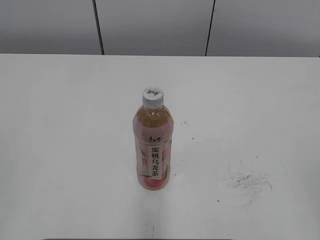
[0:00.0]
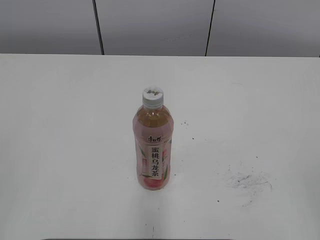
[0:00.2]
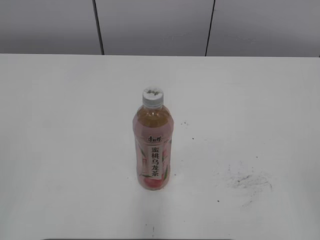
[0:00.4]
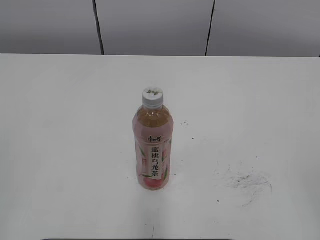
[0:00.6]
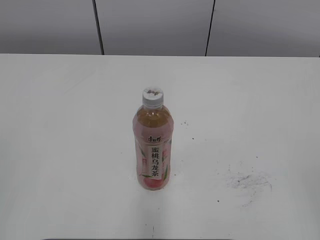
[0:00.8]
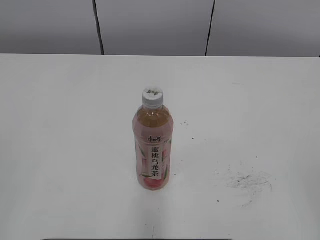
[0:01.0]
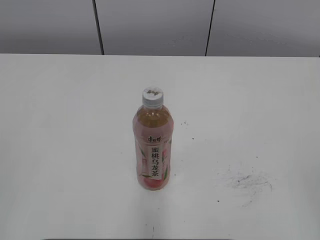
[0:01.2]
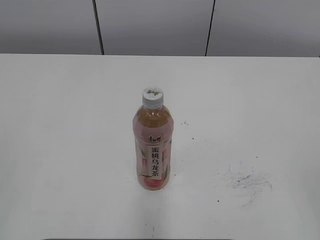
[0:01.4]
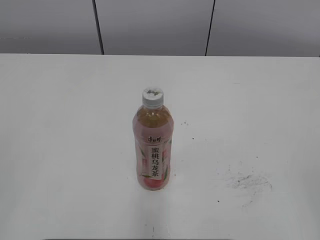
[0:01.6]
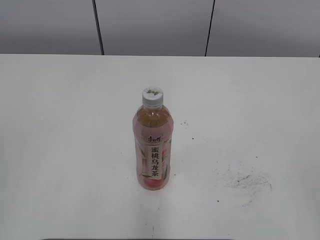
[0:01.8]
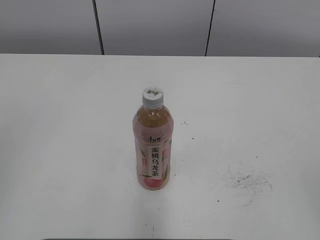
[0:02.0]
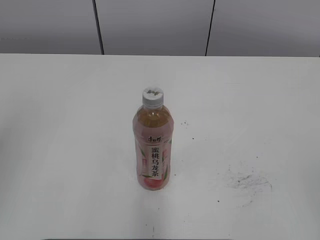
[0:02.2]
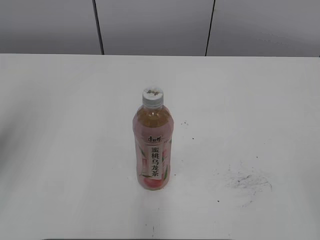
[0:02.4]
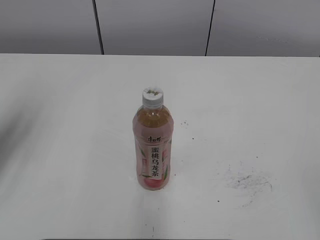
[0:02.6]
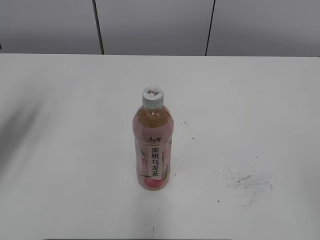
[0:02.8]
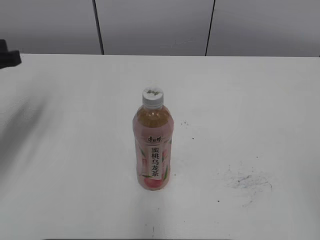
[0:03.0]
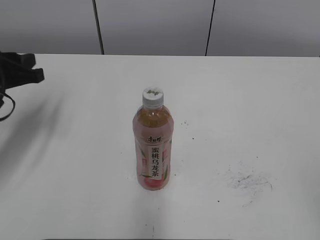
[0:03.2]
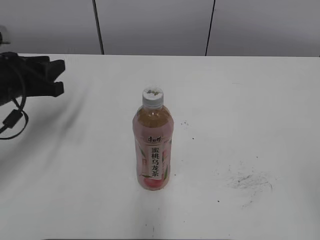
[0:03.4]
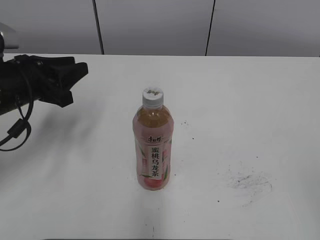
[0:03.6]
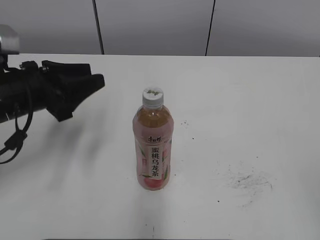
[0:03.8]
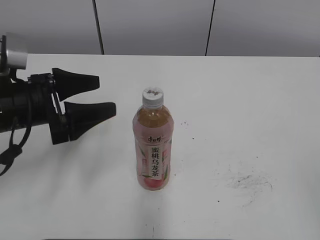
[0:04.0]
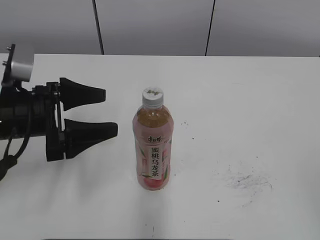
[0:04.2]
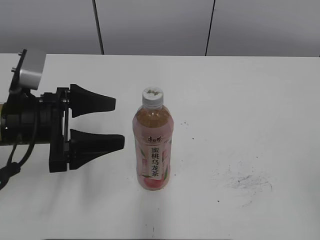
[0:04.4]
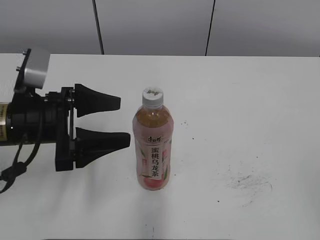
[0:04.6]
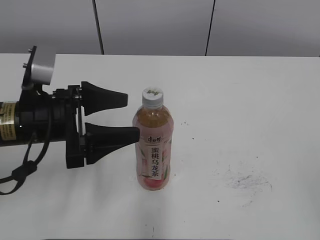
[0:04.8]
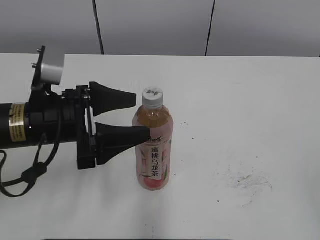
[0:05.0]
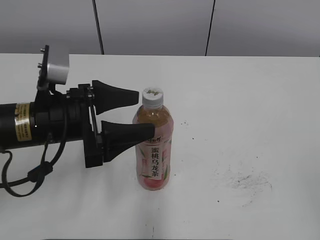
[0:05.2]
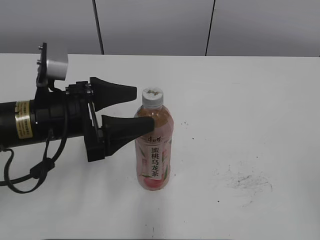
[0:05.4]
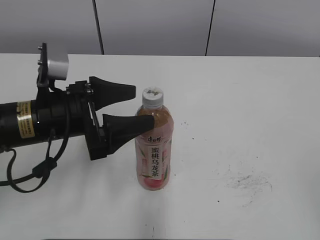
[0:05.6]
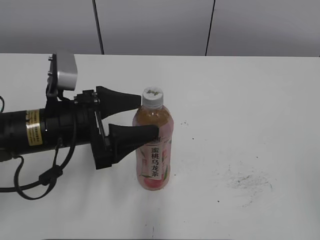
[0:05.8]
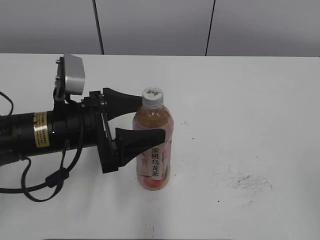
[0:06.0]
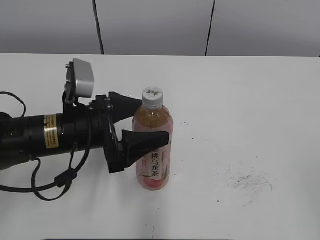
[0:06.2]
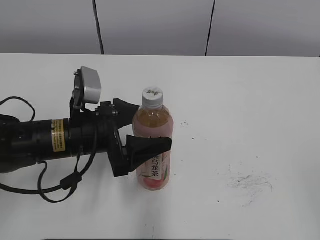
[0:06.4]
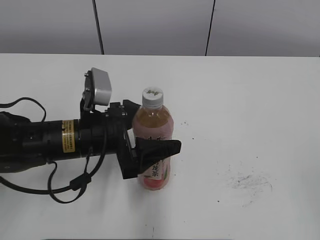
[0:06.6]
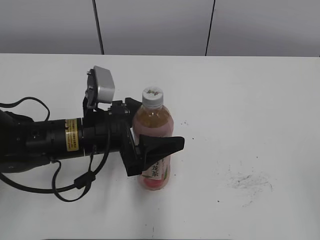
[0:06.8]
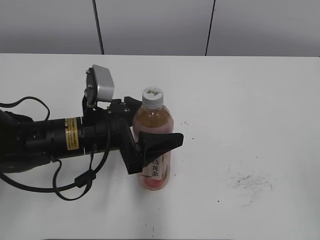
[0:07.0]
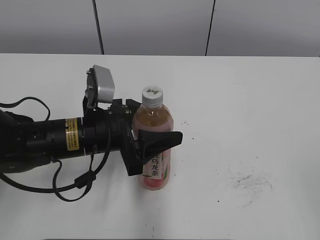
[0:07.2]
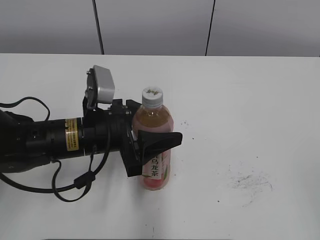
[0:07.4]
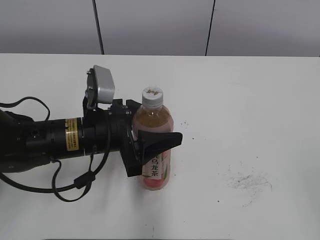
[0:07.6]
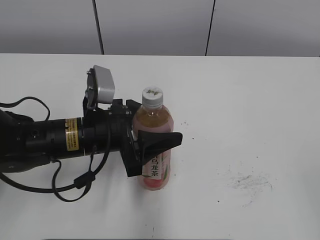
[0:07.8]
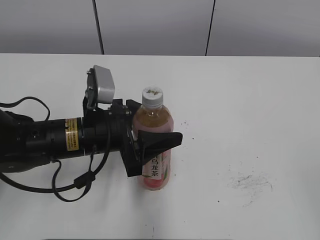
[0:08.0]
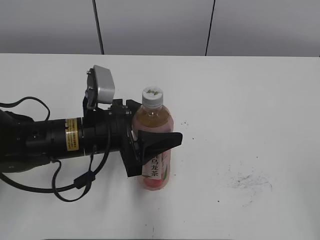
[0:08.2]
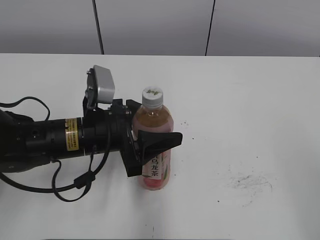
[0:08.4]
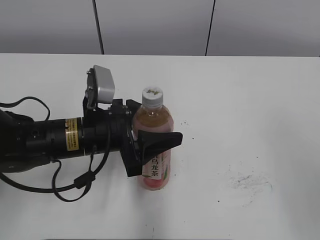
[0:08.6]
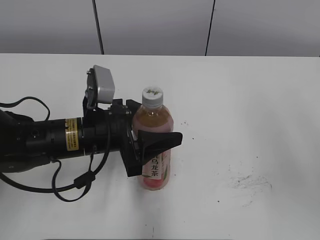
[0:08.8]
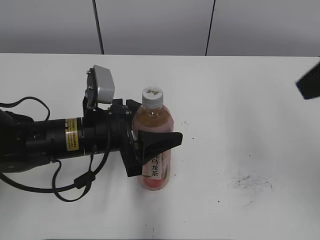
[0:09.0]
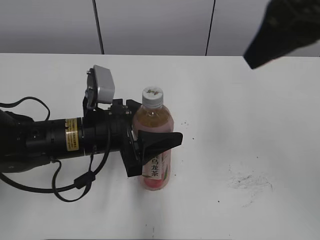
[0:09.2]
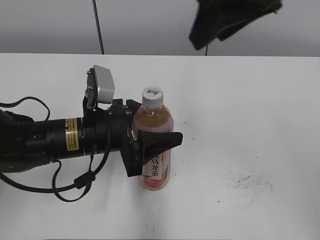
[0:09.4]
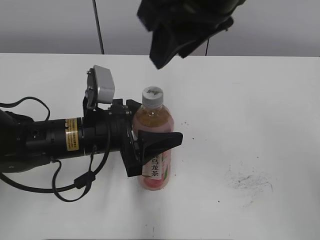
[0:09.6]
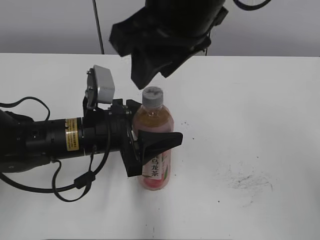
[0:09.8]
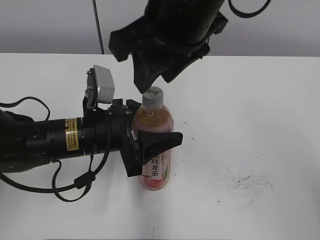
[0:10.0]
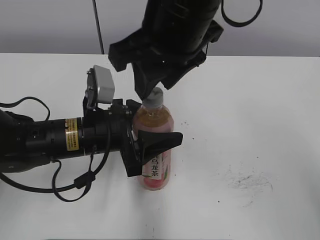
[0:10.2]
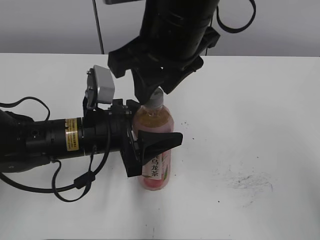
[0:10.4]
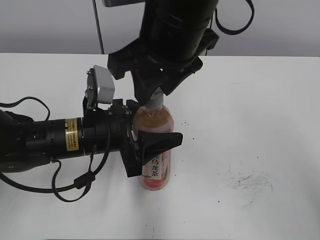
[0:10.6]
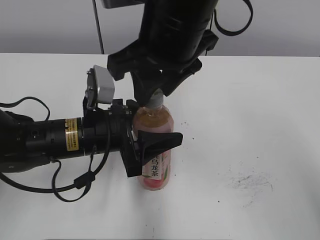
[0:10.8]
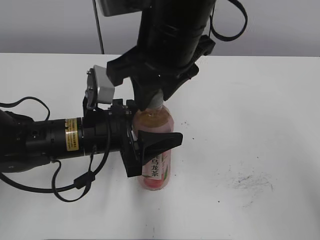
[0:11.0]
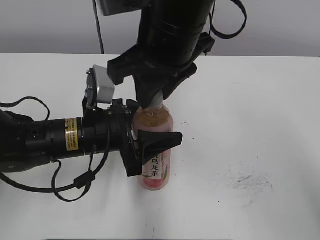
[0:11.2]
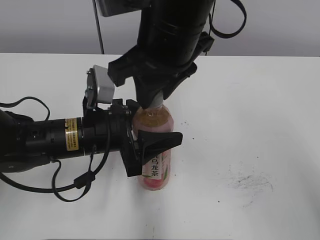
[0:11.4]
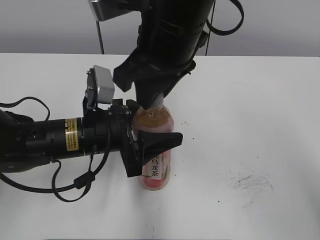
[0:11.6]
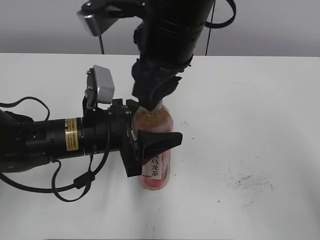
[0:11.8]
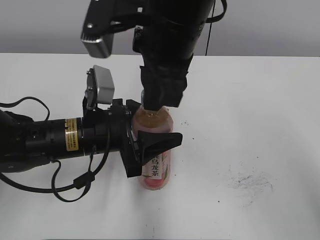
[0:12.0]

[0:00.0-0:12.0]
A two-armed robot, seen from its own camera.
Step, 0:00.0 to 0:07.0: Grab the Peach Oolong Tea with the left hand.
0:01.6 to 0:03.0: The left gripper shifts roughly 30 cm forward.
0:03.0 to 0:04.4: The left gripper heads to the right and downward, covering approximately 10 cm, and opens its fingers.
0:04.4 to 0:06.0: The left gripper shifts about 5 cm to the right.
0:06.0 to 0:07.6: The left gripper closes.
0:07.6 to 0:09.0: The right gripper heads forward, upward and to the left, covering about 25 cm.
0:09.0 to 0:10.4: The right gripper moves to the left, approximately 20 cm.

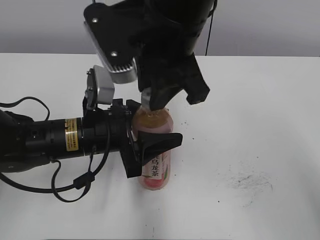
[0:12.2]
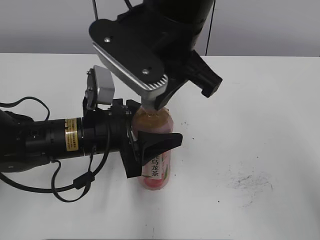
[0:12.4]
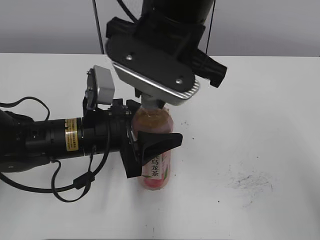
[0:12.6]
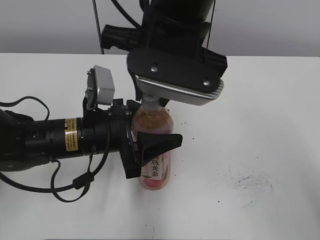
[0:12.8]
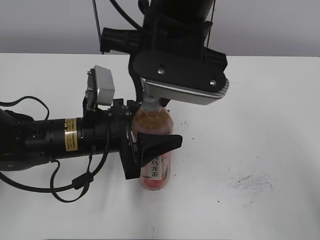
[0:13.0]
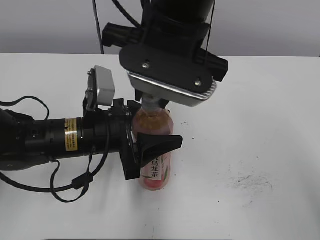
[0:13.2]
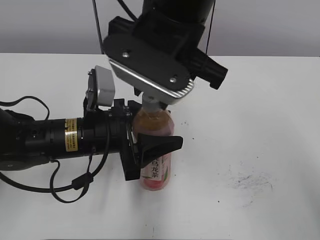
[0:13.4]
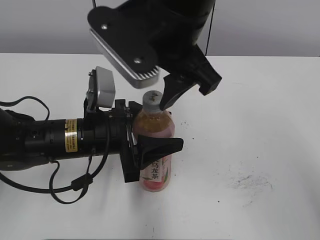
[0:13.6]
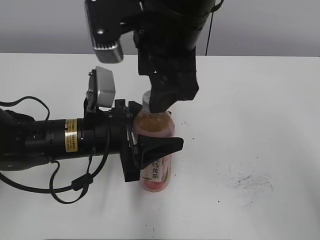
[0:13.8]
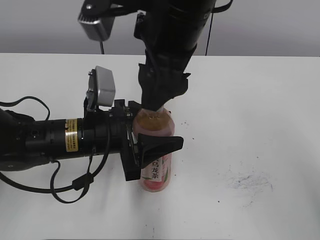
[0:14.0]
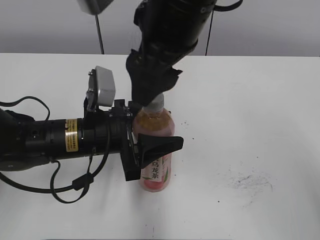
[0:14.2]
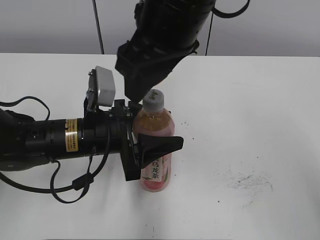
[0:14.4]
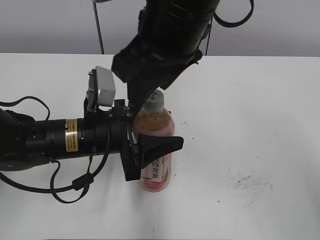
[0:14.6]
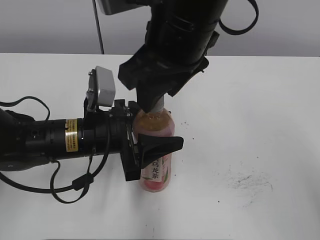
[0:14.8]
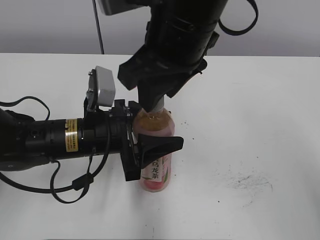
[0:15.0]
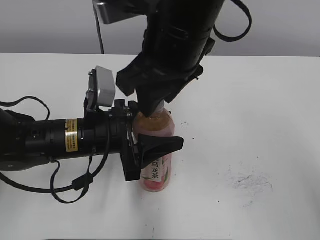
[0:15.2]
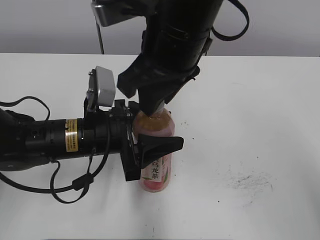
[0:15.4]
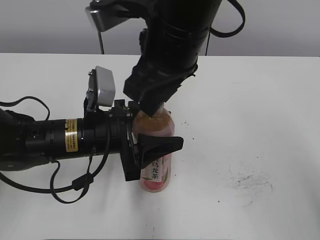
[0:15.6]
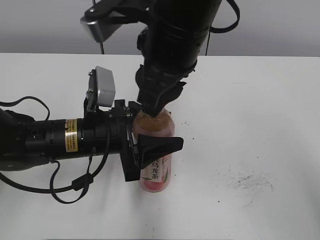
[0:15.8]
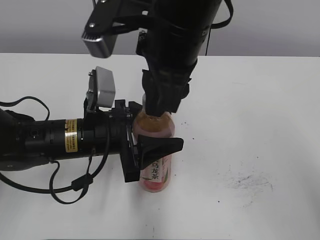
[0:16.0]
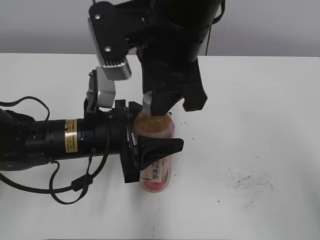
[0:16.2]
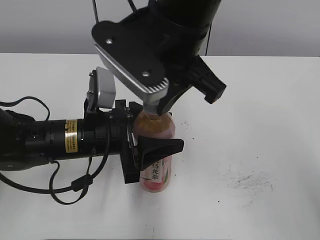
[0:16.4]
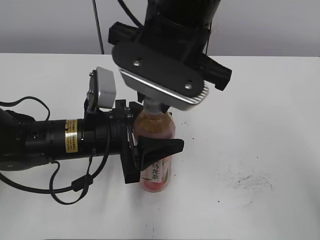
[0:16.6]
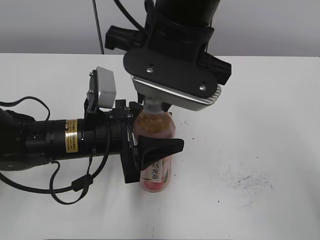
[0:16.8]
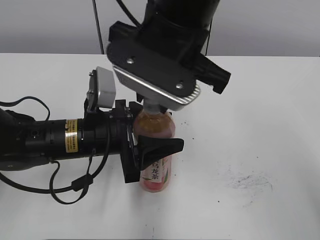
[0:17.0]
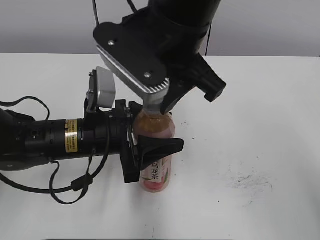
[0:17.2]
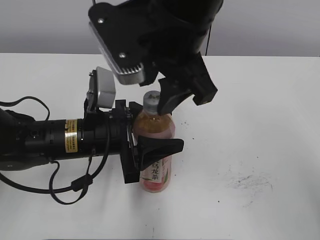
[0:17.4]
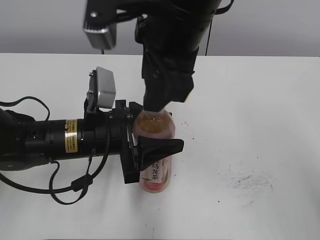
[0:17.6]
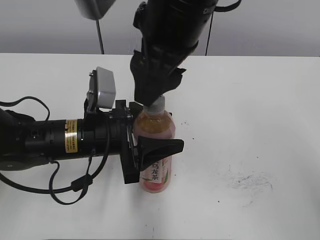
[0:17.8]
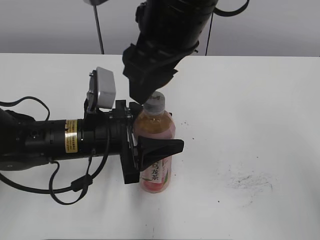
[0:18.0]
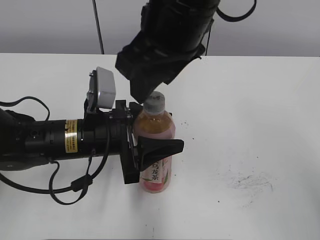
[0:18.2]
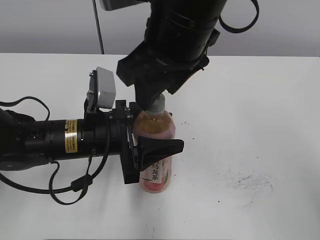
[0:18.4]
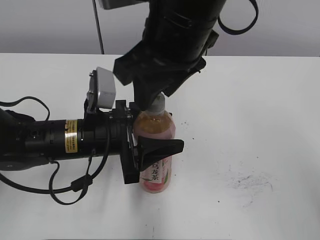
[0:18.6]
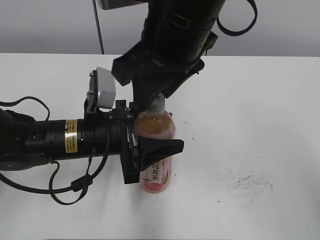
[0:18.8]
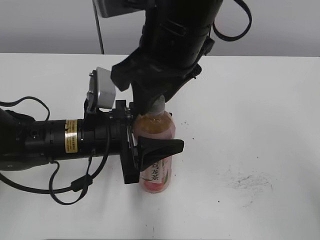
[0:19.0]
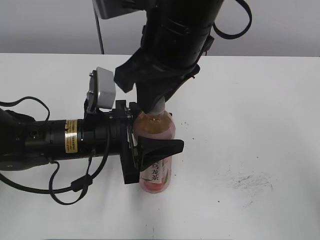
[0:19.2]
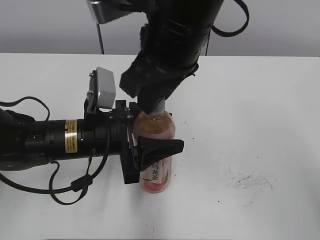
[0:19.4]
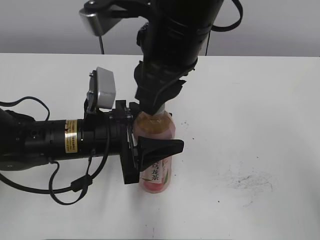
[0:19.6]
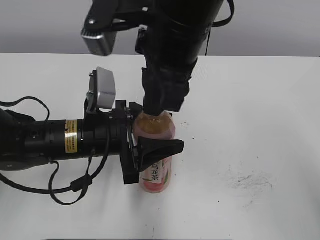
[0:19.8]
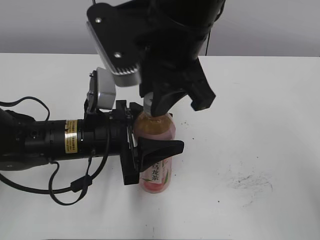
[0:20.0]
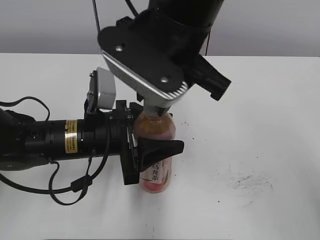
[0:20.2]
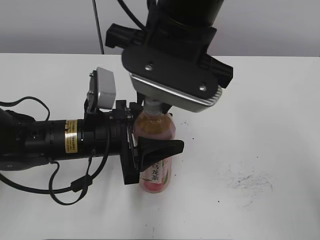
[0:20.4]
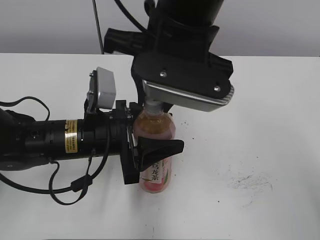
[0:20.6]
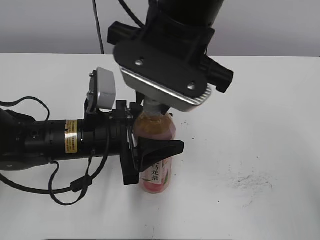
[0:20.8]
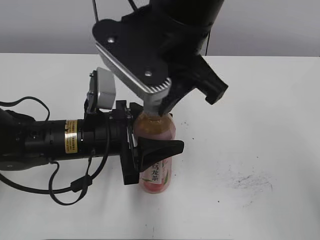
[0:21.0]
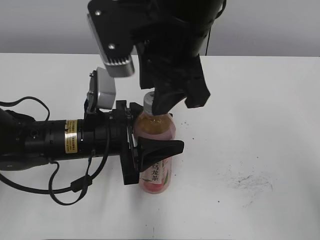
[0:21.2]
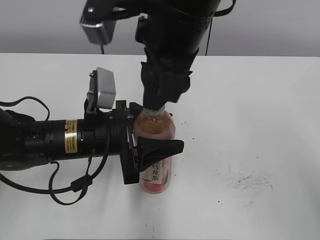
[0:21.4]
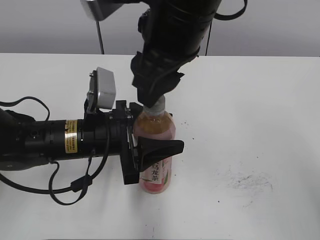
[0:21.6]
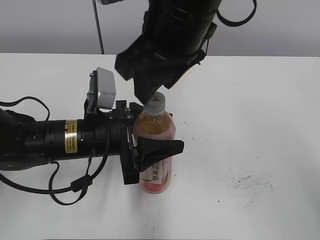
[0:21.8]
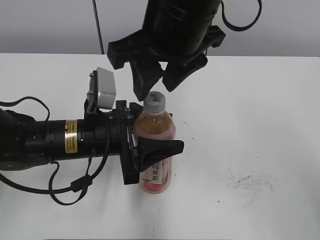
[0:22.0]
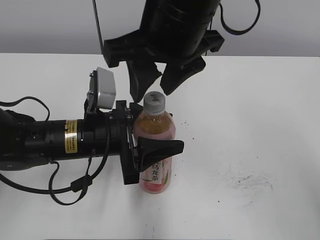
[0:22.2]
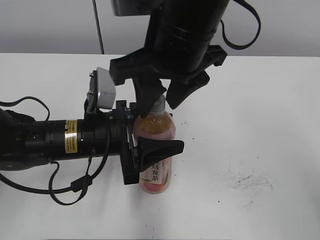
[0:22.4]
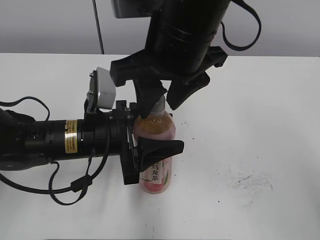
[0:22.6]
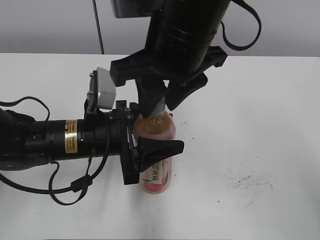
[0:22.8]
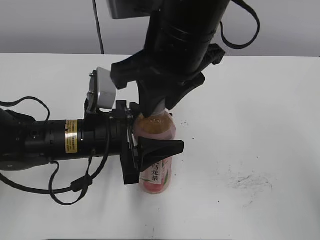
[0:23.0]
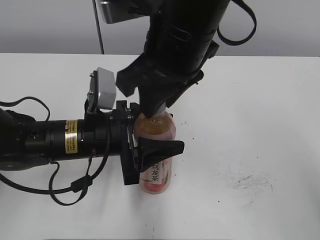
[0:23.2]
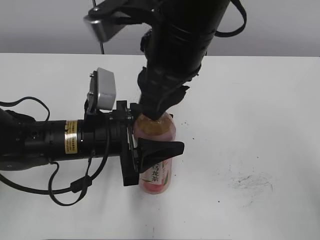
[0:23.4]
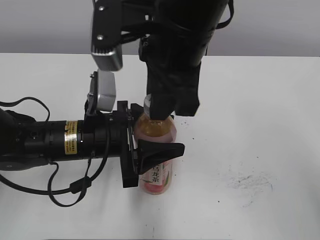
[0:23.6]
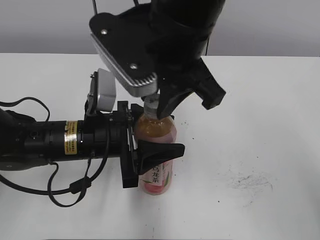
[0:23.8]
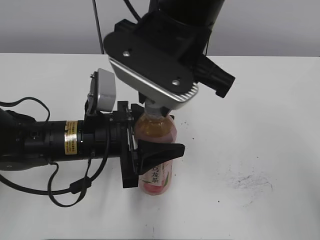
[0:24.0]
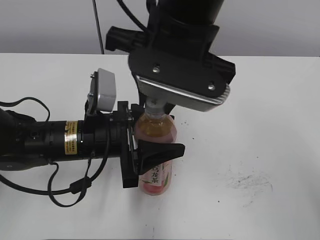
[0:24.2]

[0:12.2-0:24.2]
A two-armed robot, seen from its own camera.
0:12.2 to 0:13.8: The right gripper opens its fingers.
0:13.8 to 0:15.2: The right gripper closes.
0:16.6 to 0:18.2: The right gripper opens.
0:18.2 to 0:19.8: The right gripper closes.
0:19.8 to 0:21.2: The right gripper opens its fingers.
0:22.6 to 0:24.2: The right gripper closes its fingers.
